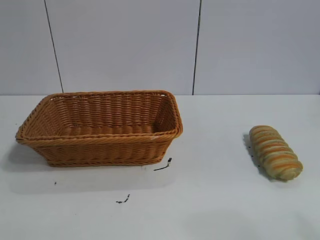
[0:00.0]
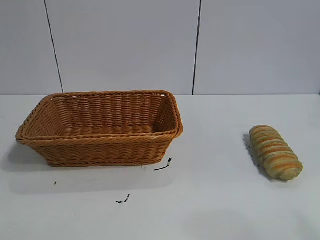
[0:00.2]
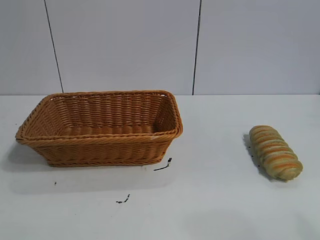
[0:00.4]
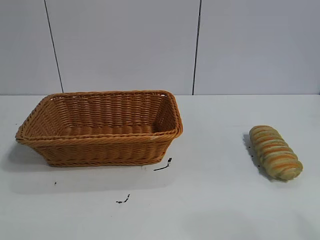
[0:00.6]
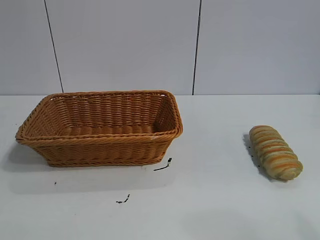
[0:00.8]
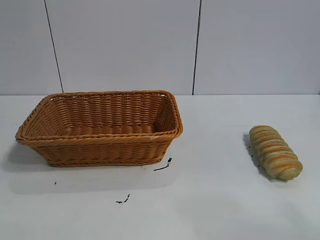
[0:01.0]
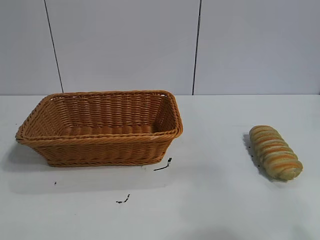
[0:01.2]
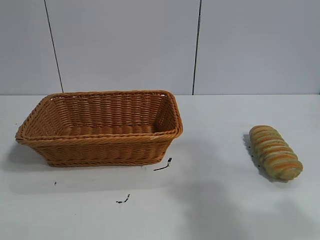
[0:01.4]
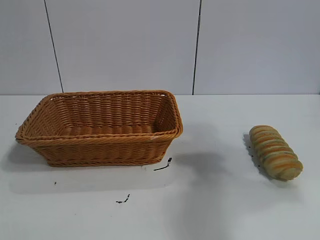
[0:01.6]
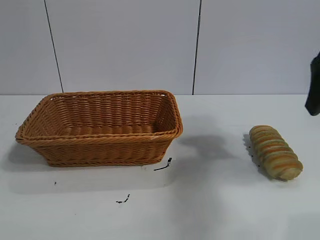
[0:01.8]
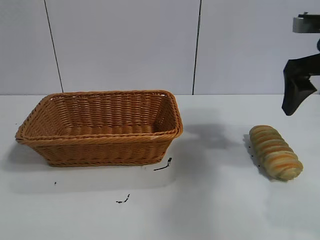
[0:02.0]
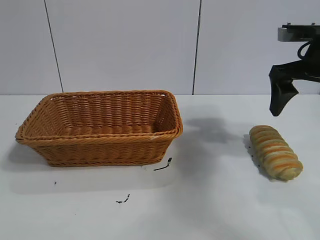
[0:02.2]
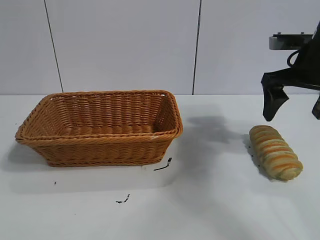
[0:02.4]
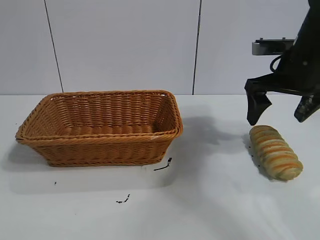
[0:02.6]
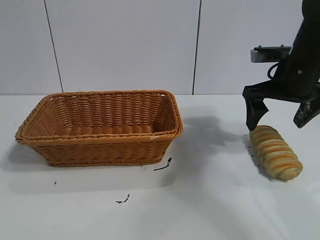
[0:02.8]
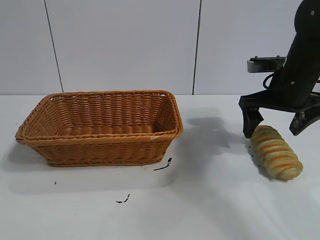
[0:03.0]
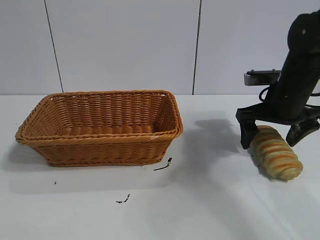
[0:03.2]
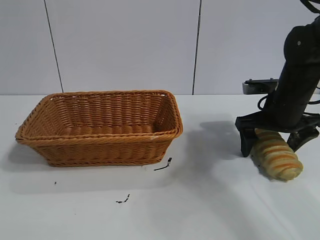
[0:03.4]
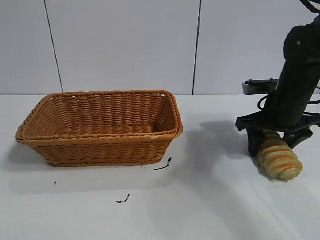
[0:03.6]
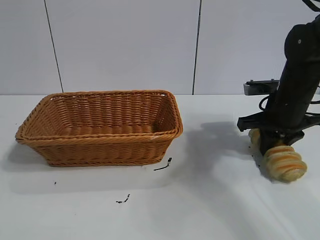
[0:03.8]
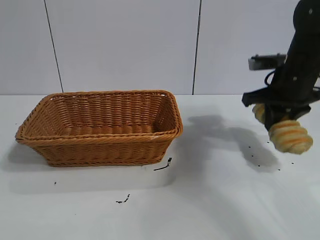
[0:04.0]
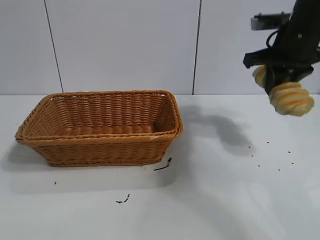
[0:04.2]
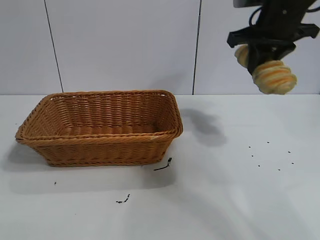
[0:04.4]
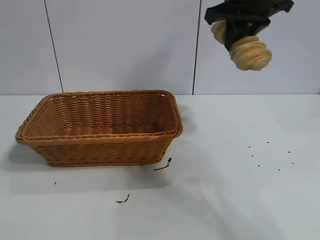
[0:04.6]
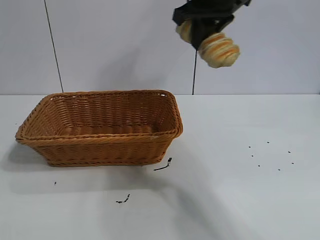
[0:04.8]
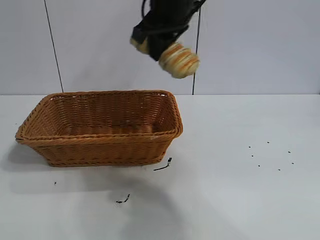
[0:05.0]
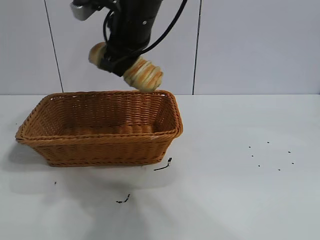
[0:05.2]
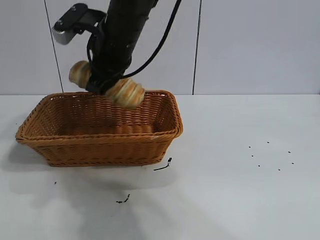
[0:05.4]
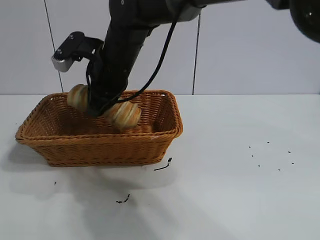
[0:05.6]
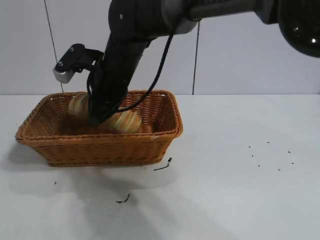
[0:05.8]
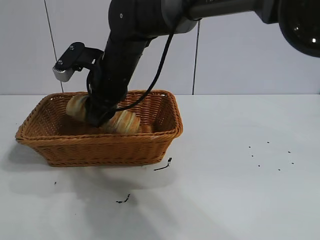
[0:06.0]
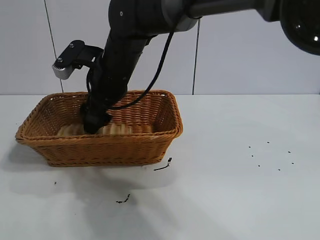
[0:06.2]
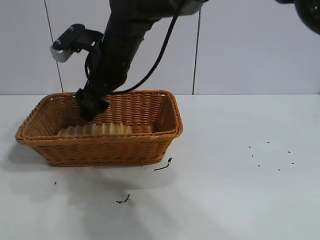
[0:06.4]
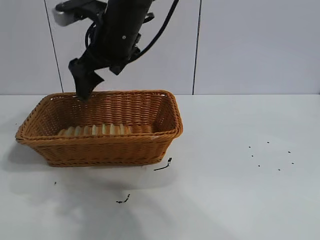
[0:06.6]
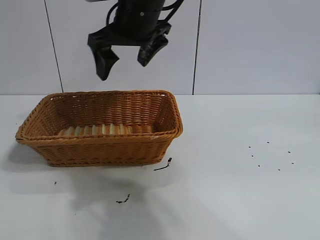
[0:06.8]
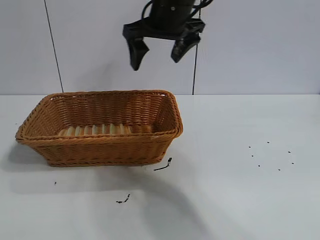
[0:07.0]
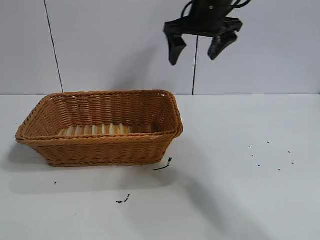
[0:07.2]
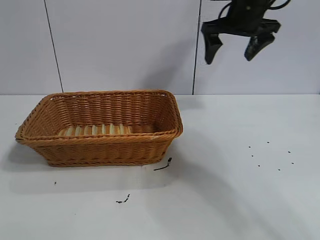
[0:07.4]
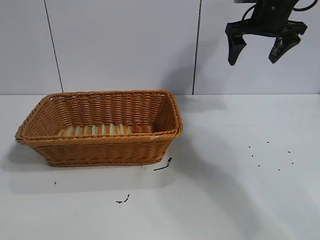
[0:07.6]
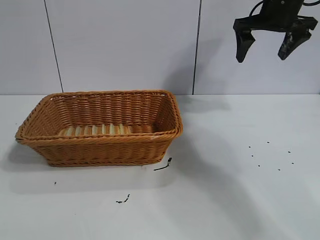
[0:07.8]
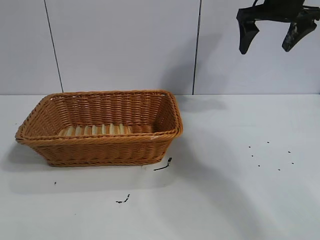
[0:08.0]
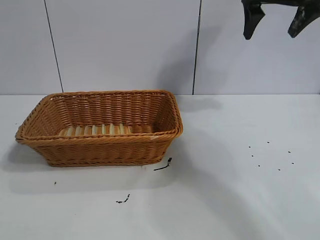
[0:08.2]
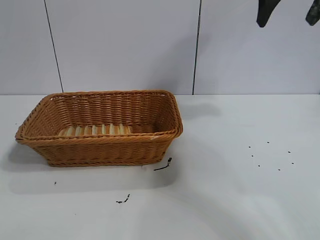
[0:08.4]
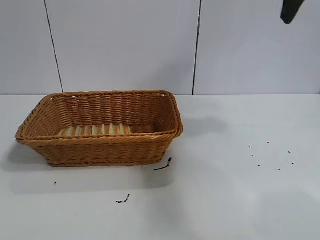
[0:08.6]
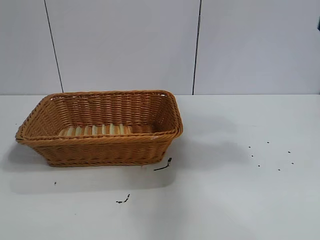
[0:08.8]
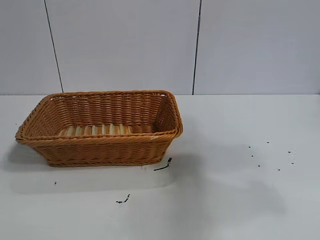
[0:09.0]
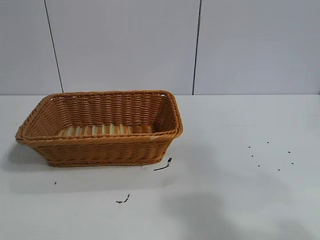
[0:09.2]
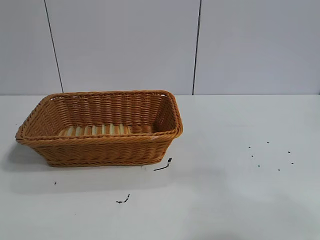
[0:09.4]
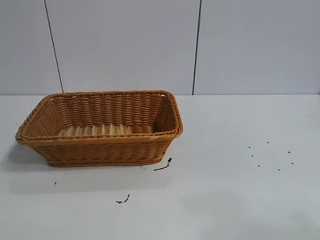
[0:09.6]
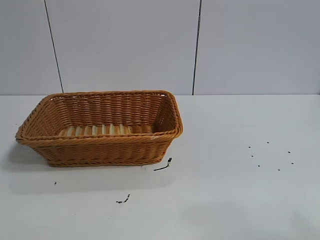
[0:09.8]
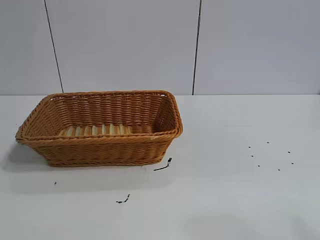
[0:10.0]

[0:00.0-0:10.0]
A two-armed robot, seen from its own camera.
Task of the whole recording: pick up the long bread and put it into the basket.
Step, 0:01.8 to 0:03.8: Grasp the long bread with right gripper.
Step, 0:04.0 to 0:06.4: Place the long bread in the basket with right gripper.
